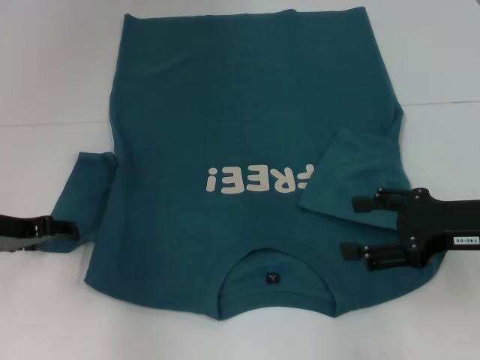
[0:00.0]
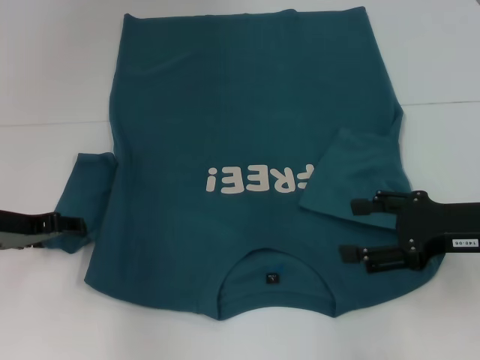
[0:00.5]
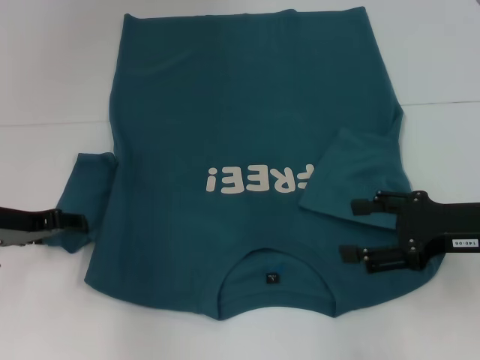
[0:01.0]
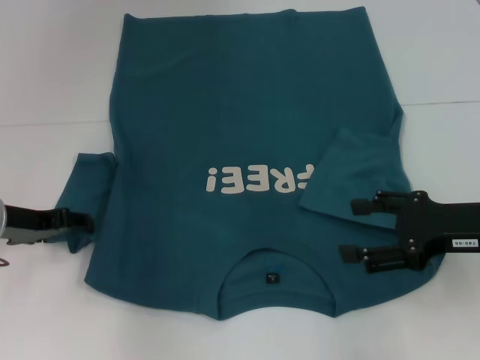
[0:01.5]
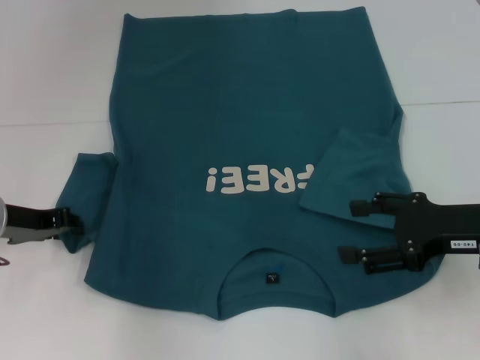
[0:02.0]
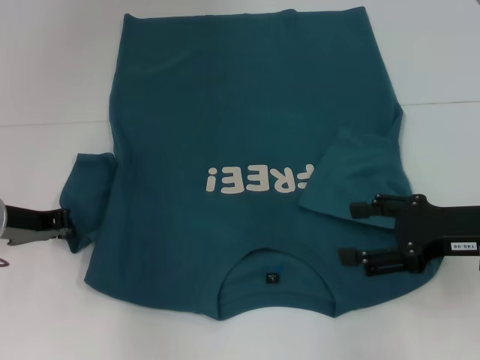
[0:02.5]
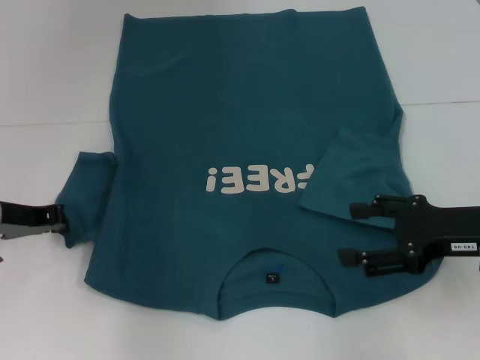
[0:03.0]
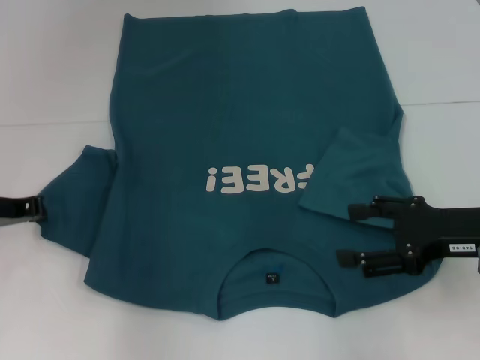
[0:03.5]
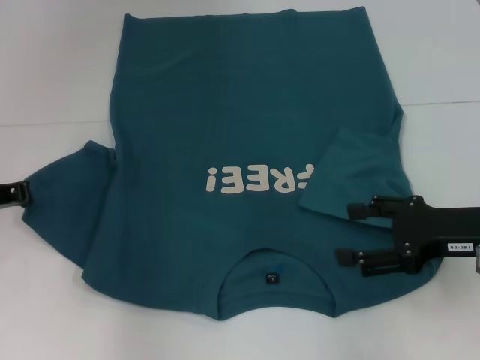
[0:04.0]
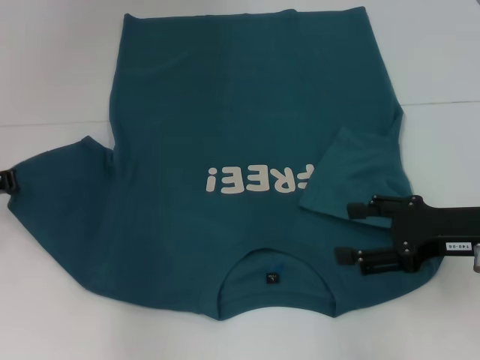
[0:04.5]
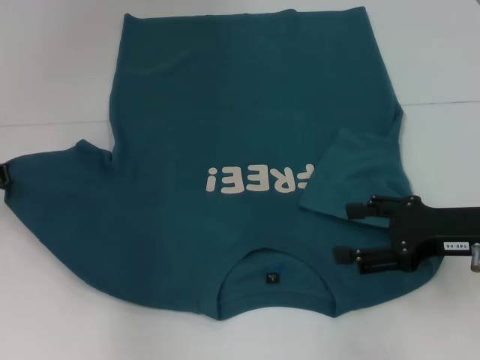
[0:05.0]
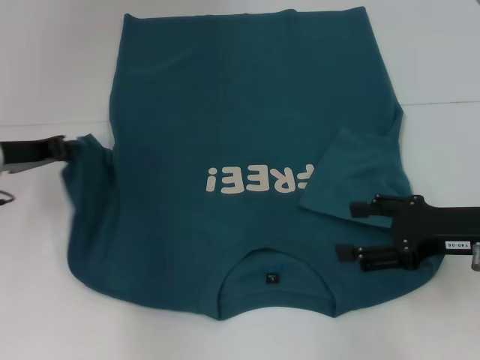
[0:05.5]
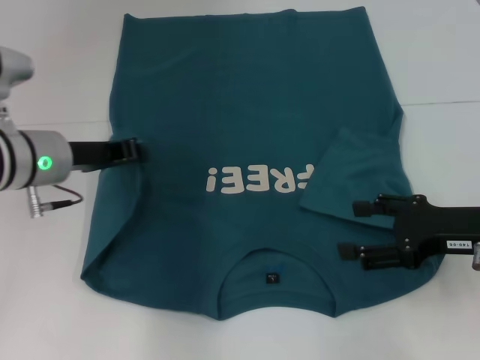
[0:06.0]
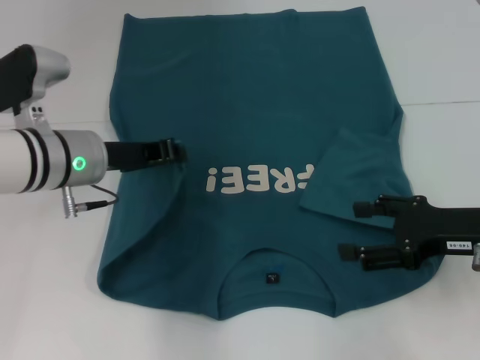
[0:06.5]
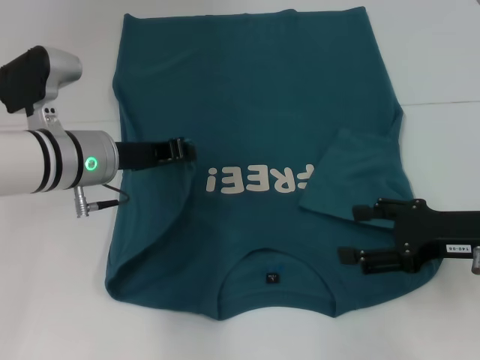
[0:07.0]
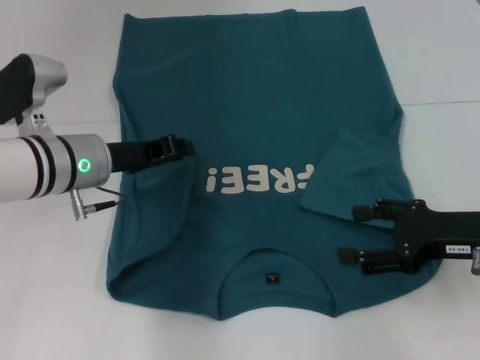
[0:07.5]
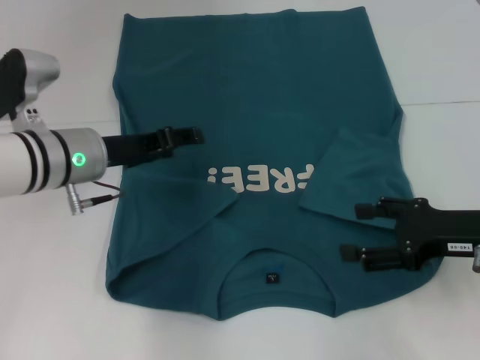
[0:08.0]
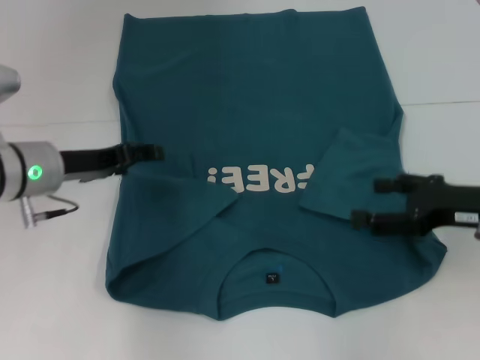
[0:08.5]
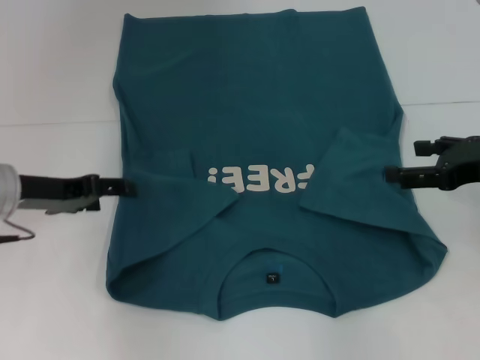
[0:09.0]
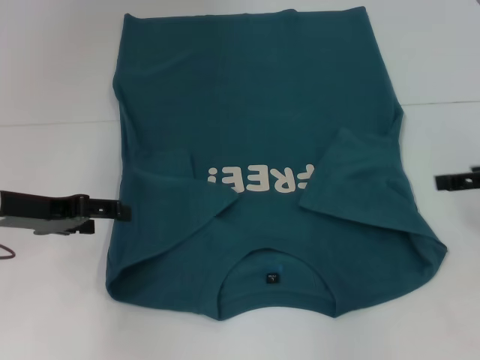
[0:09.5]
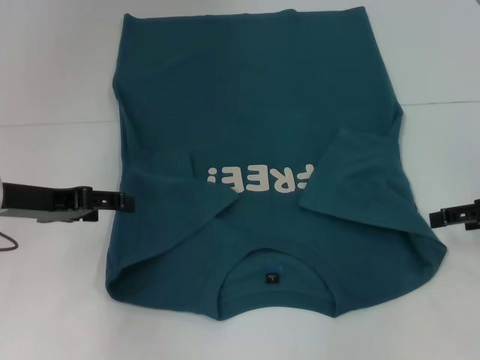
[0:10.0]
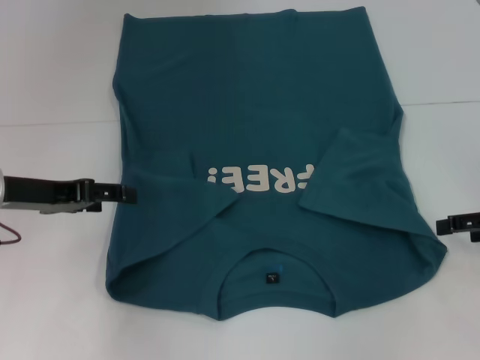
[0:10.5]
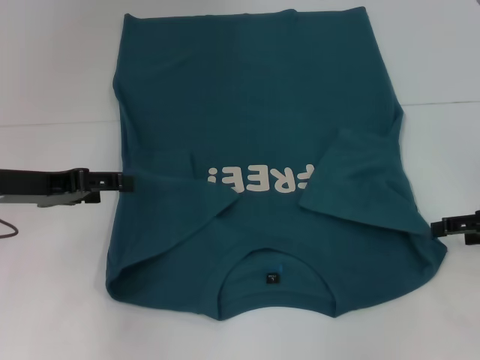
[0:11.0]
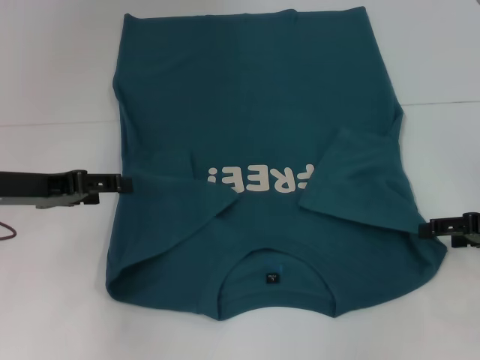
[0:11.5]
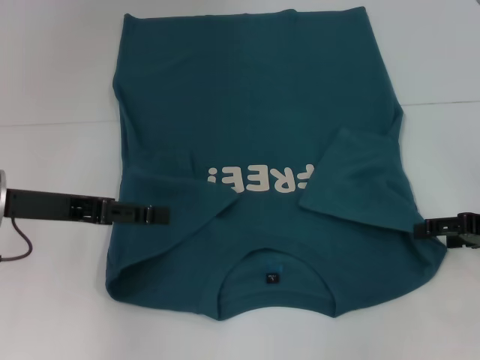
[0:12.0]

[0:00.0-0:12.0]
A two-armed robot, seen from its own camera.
Step, 0:00.0 to 0:09.5: Fold the bottom left sleeve with your left hand.
0:00.0 to 0:02.0: The grippers stay close to where they were, moving slightly.
0:02.0 to 0:04.0: The left gripper closes up.
0:04.0 to 0:06.0: The left gripper moves to the right, about 10 cm.
0:06.0 to 0:08.0: The left gripper opens.
0:08.0 to 0:10.0: The left gripper moves to the left, about 10 cm, and opens; the right gripper heads to the right, covering roughly 5 cm.

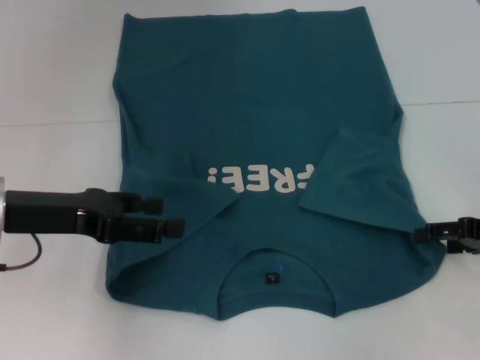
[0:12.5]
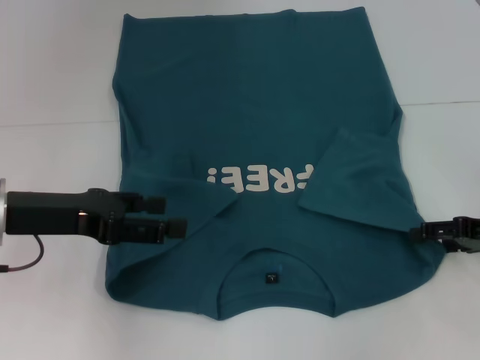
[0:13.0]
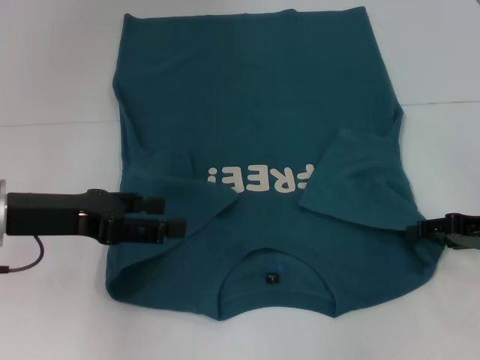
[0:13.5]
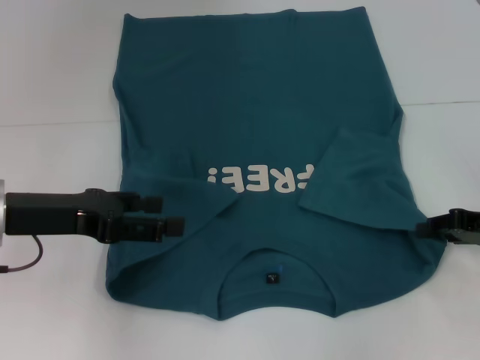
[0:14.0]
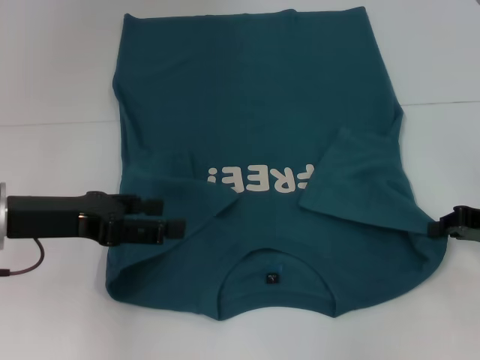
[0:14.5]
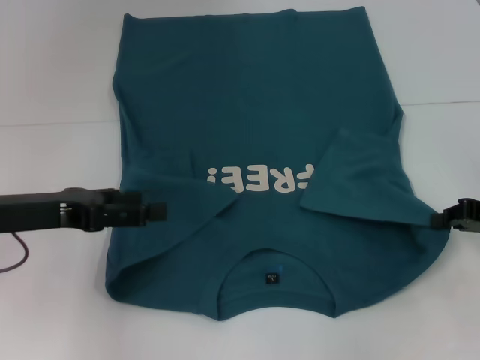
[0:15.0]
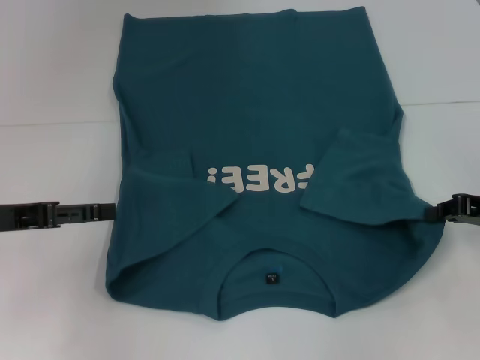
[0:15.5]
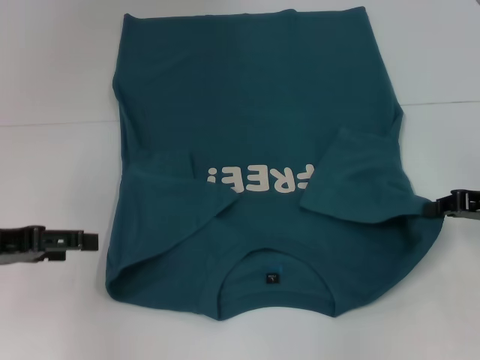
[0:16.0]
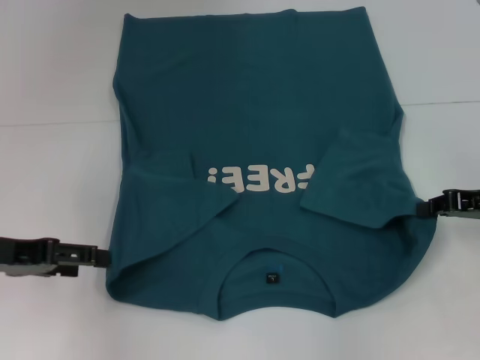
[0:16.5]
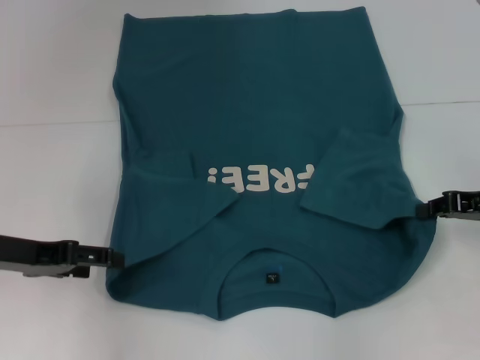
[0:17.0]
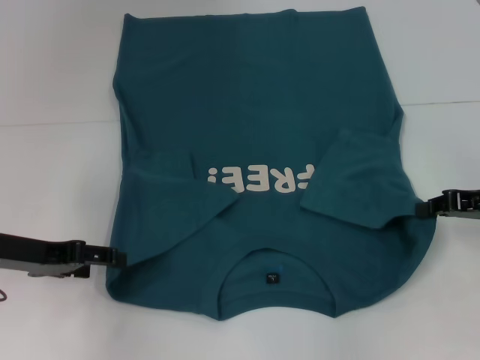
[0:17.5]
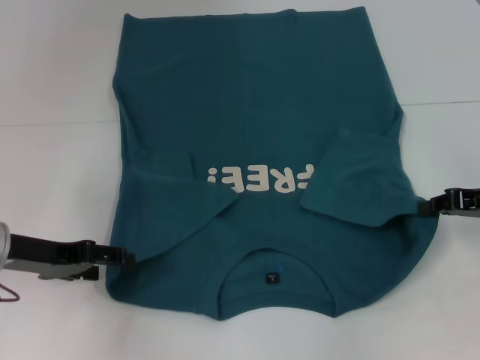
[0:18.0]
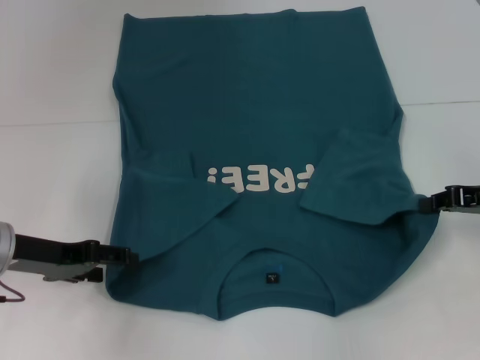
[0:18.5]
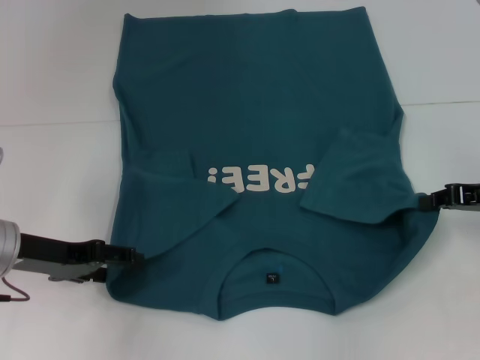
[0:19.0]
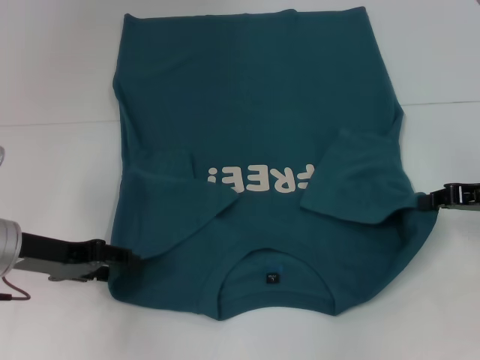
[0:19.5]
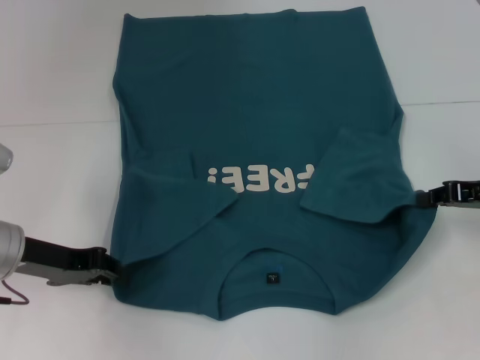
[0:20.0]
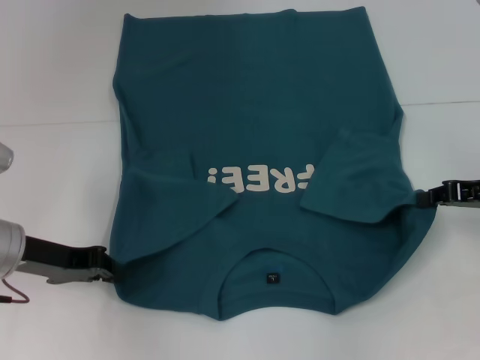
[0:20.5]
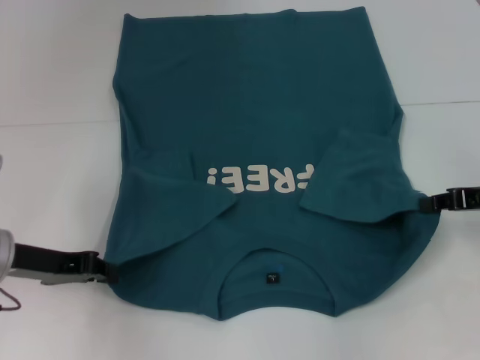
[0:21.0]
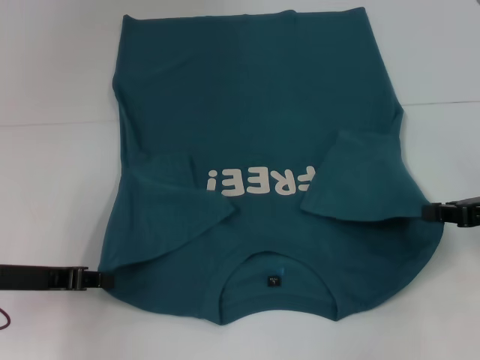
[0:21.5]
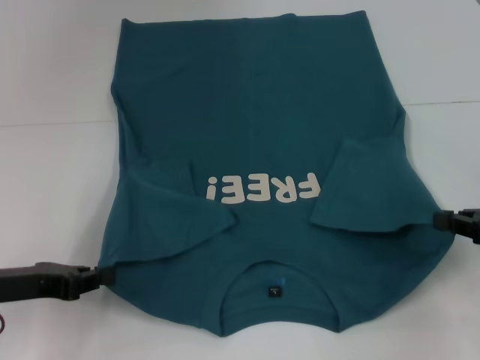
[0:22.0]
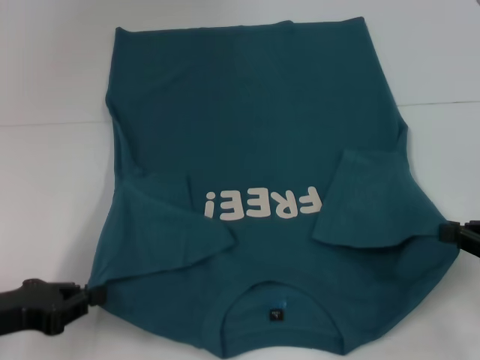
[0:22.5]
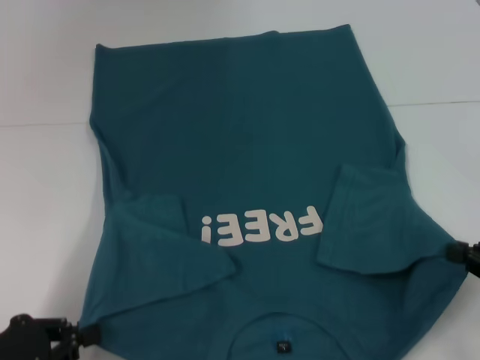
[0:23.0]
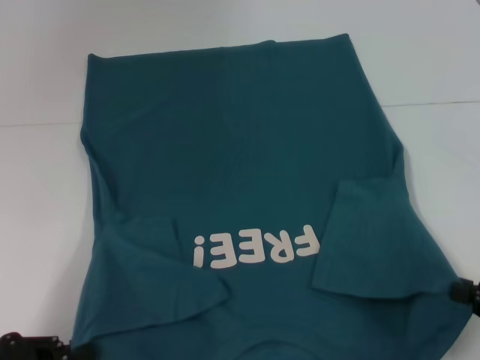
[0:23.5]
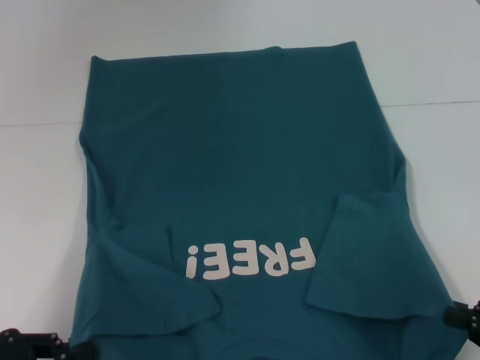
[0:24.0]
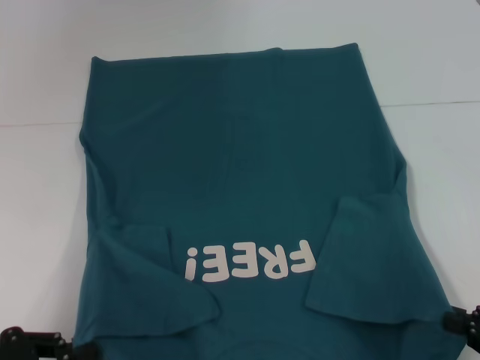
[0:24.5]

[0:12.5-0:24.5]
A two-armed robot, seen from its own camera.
Step, 0:12.5 to 0:15.5: Grab the bottom right corner with your right hand.
Step, 0:16.0 to 0:20.5: Grab the bottom left corner with your left hand.
0:12.5 to 0:14.5: The right gripper closes its fingers.
0:14.5 to 0:16.5: The left gripper goes roughly 5 cm to the left.
0:16.5 to 0:18.5: The left gripper changes place by about 5 cm.
0:18.5 to 0:20.5: The left gripper closes up.
0:20.5 to 0:22.5: The left gripper goes roughly 10 cm backward and to the left. The right gripper is displaced backward by roughly 10 cm.
0:22.5 to 0:24.5: The two grippers go approximately 10 cm backward.

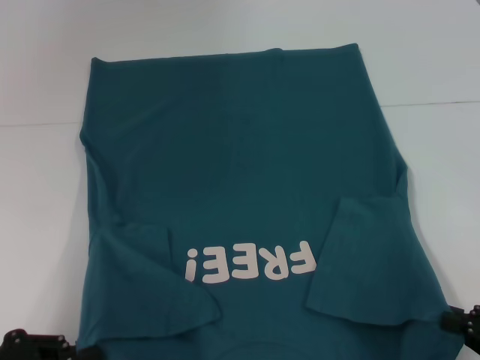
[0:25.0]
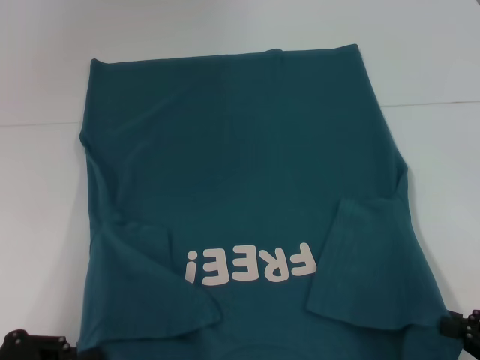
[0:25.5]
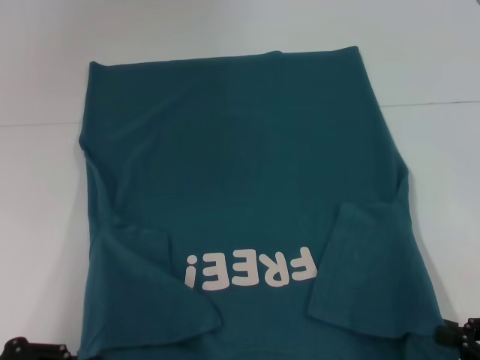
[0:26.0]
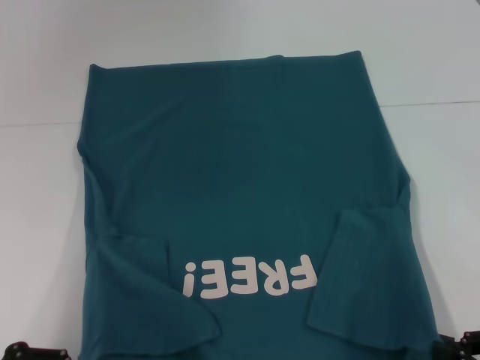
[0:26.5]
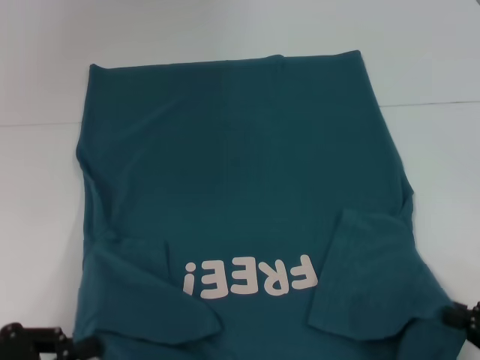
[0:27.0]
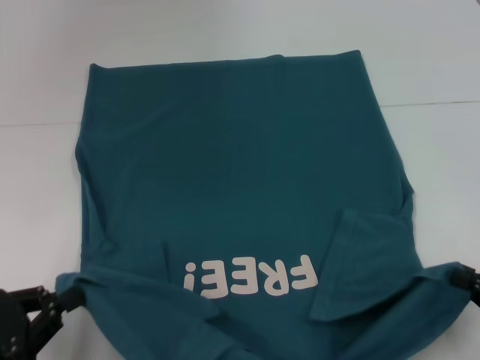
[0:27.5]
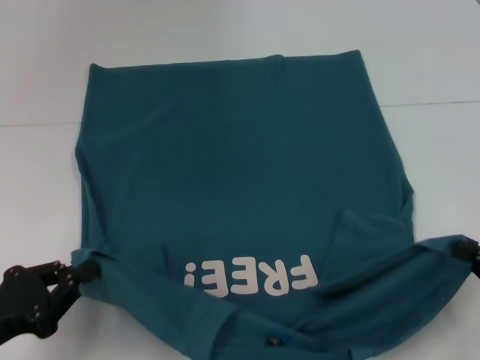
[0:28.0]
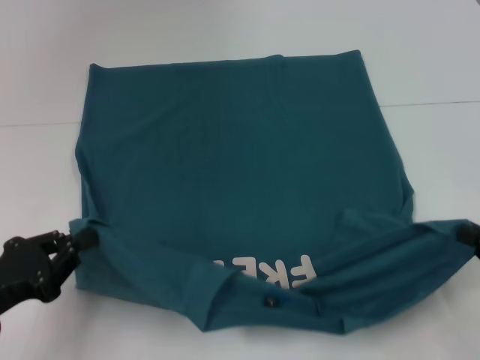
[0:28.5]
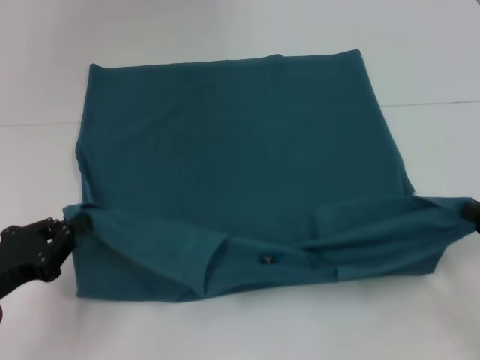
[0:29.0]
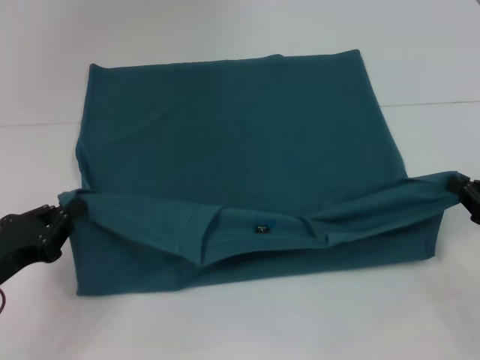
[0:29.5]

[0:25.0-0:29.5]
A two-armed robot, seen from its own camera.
0:25.0 to 0:27.0: There are only small adjustments of the grippers.
0:27.0 to 0:29.5: Both grippers travel together forward, approximately 10 cm.
